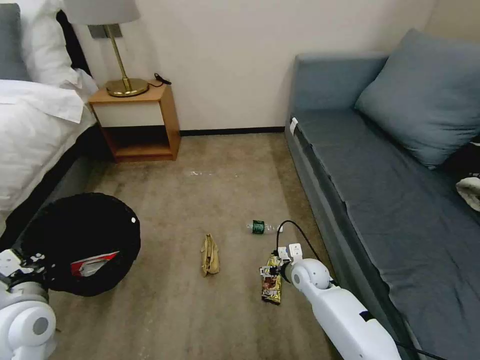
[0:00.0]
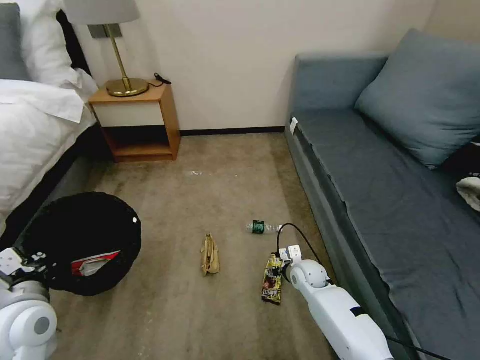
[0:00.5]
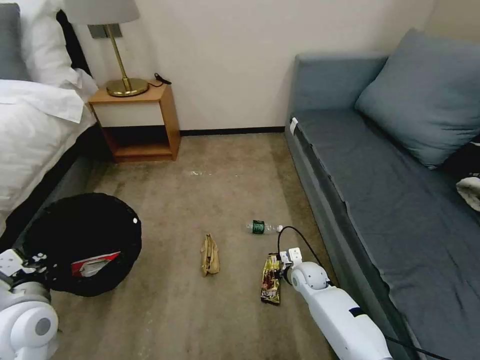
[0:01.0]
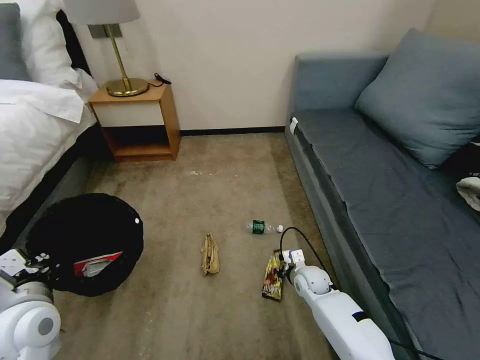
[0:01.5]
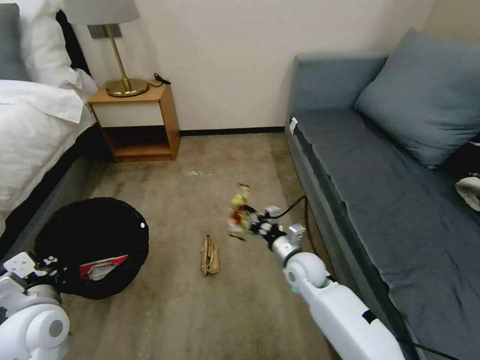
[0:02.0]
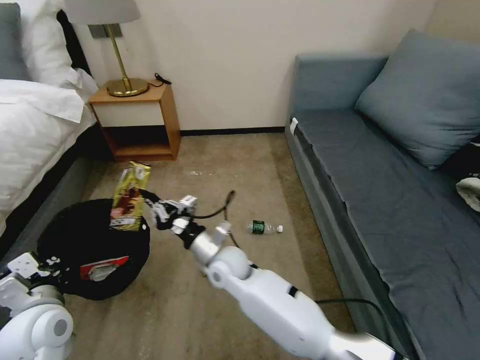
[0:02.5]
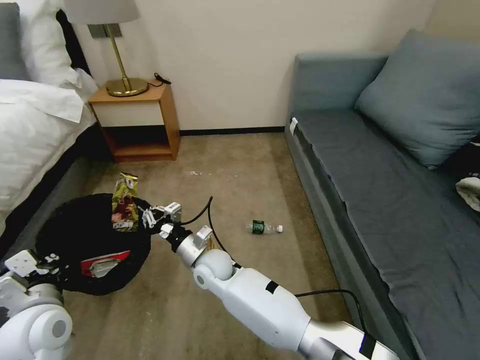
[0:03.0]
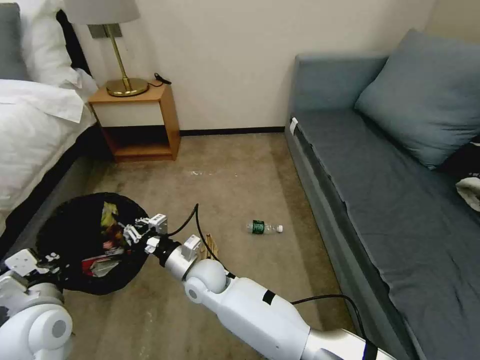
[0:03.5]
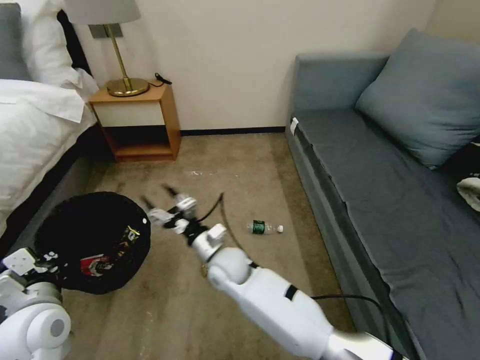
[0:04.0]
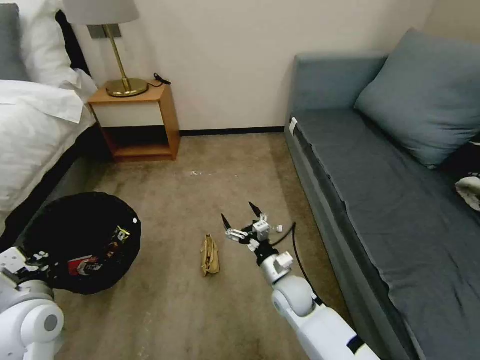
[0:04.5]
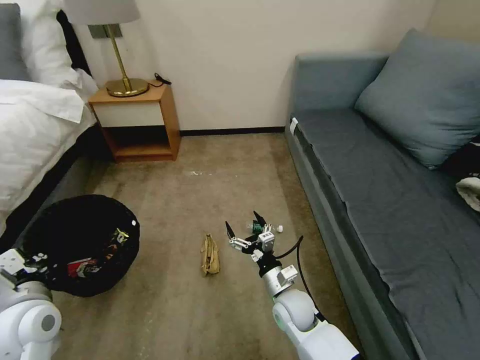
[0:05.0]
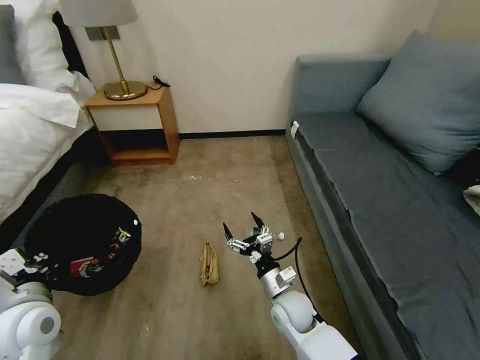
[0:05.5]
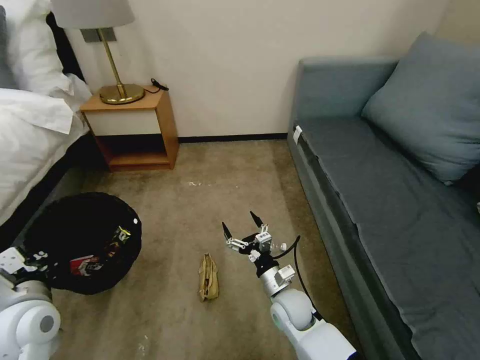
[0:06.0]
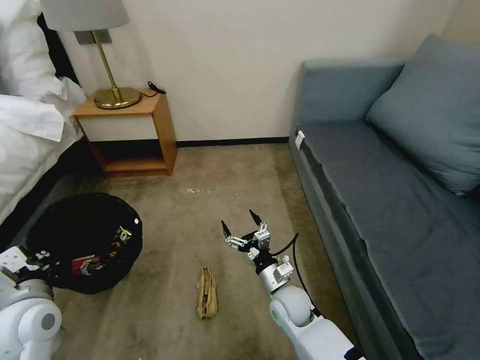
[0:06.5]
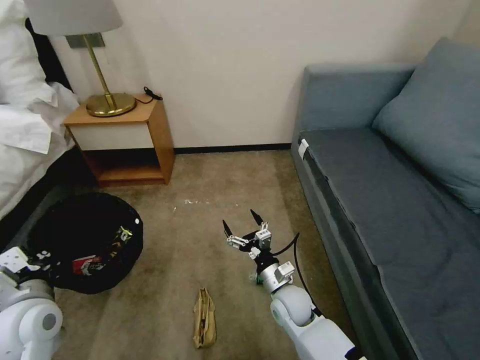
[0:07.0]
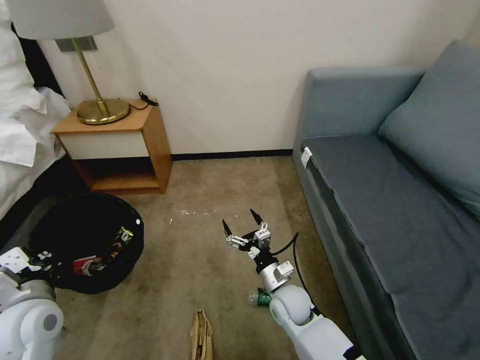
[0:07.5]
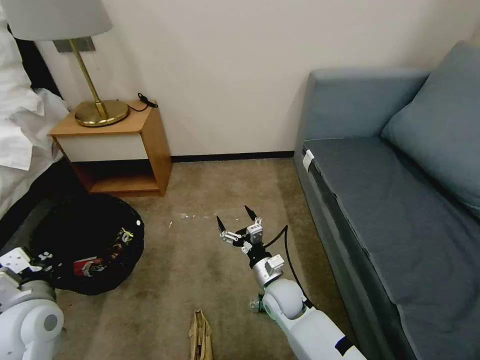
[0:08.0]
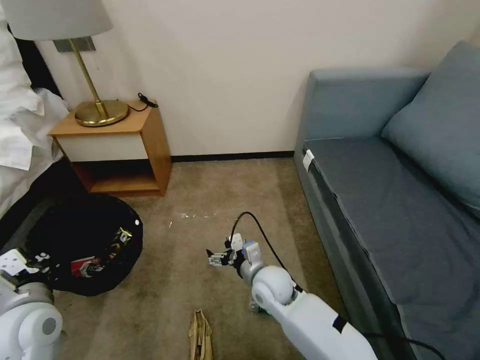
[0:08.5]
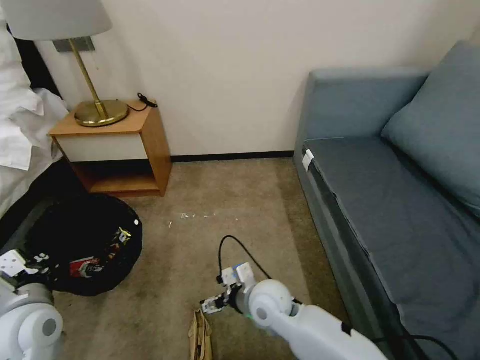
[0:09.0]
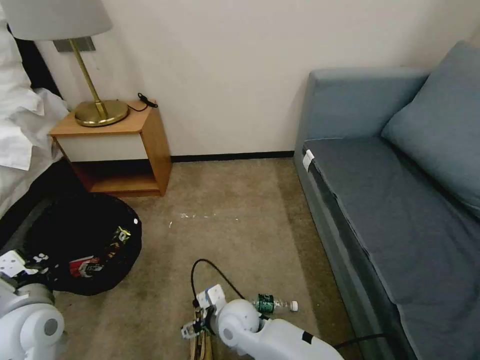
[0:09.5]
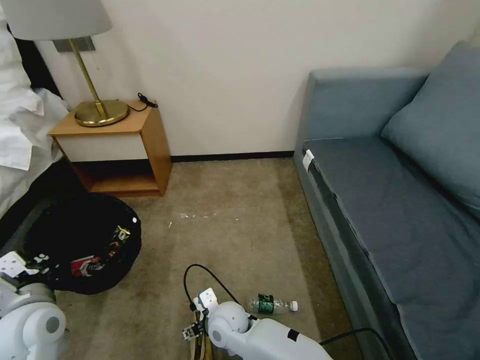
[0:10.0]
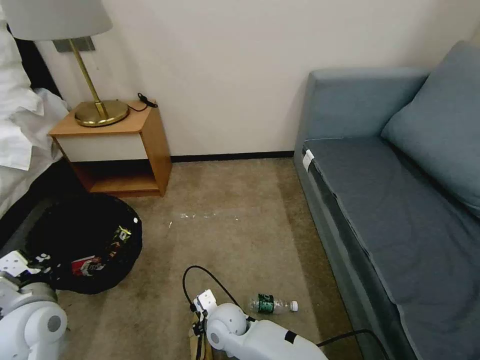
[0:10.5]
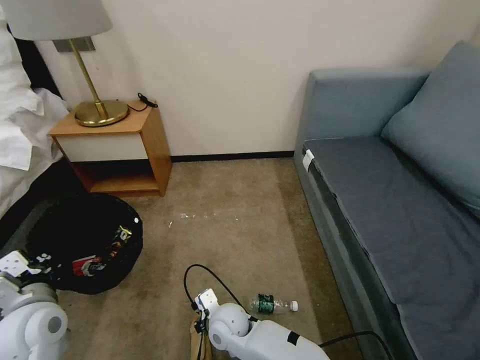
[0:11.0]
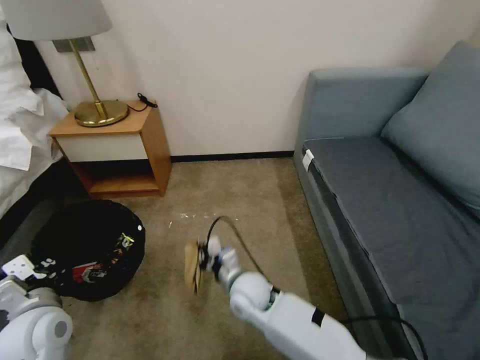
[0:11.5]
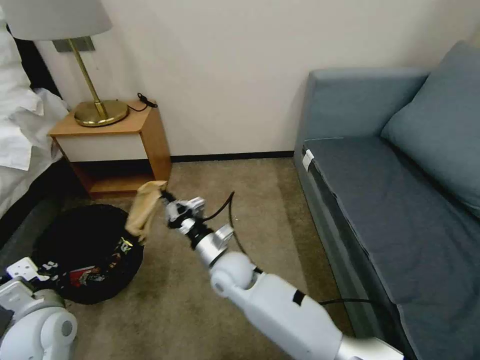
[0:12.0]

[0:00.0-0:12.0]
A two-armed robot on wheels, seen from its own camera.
Task of the whole recording: Pick up the trash bin, then pick up the garbage on the floor and place it into the trash bin.
0:00.0 to 0:02.0: The right gripper heads upward, covering approximately 5 cm, and closes its fingers.
0:02.0 to 0:04.0: The right gripper travels to the left by some 20 cm, and opens up.
0:04.0 to 0:06.0: The right gripper heads to the right, downward and backward, covering roughly 20 cm.
0:08.0 to 0:10.0: The right gripper goes approximately 15 cm to the left.
0:10.0 to 0:12.0: The right gripper goes some 15 cm upward and forward, and closes.

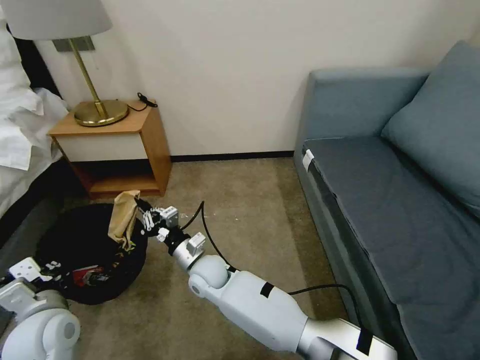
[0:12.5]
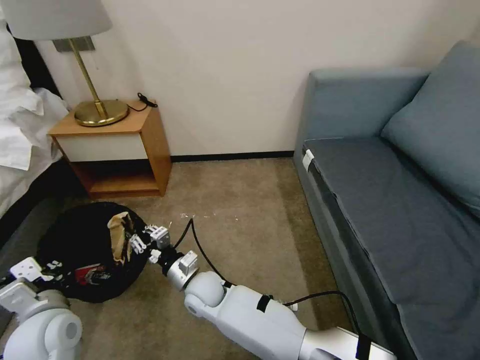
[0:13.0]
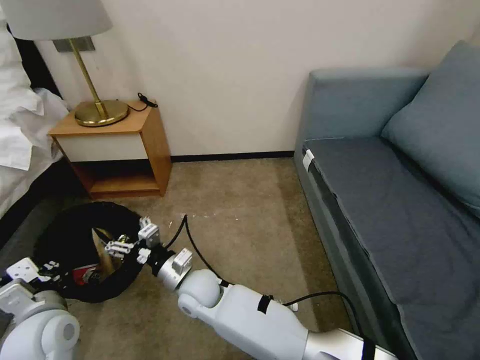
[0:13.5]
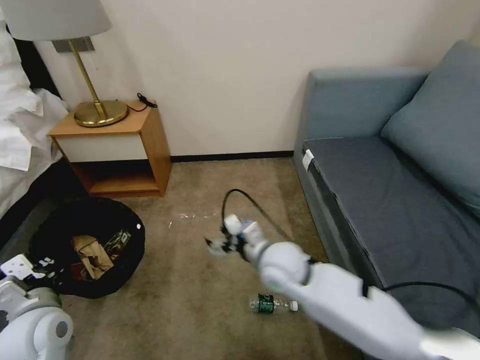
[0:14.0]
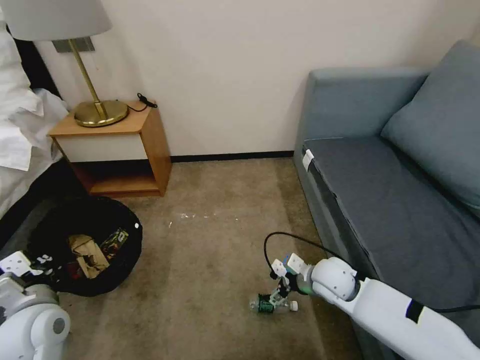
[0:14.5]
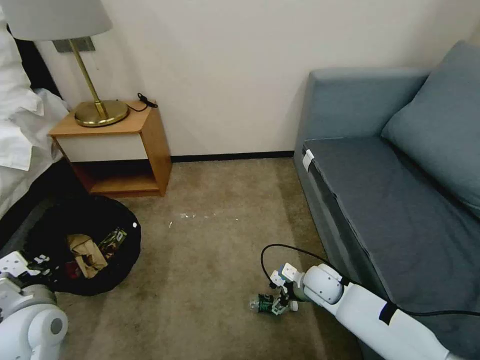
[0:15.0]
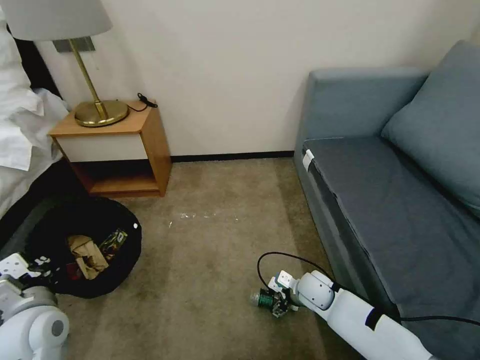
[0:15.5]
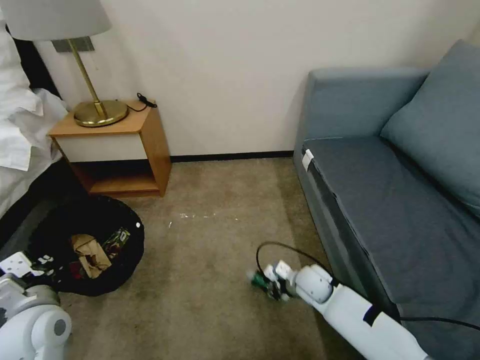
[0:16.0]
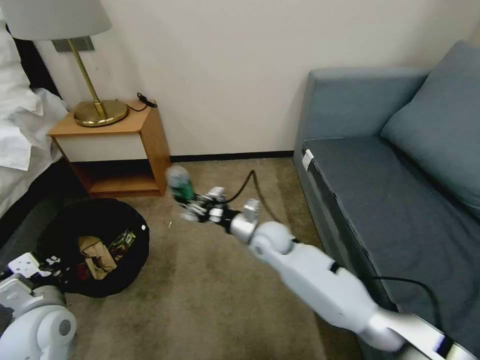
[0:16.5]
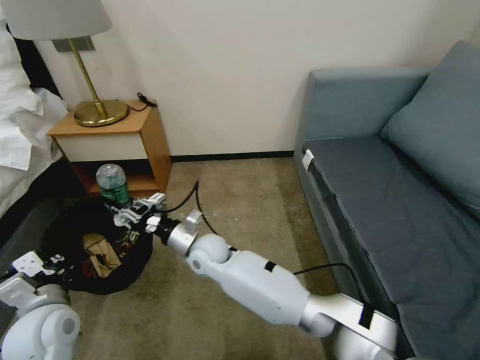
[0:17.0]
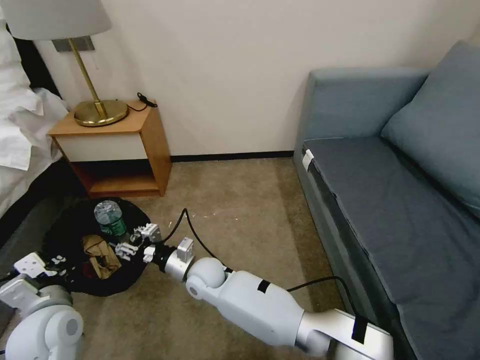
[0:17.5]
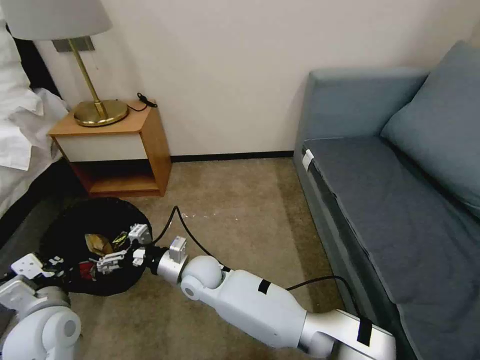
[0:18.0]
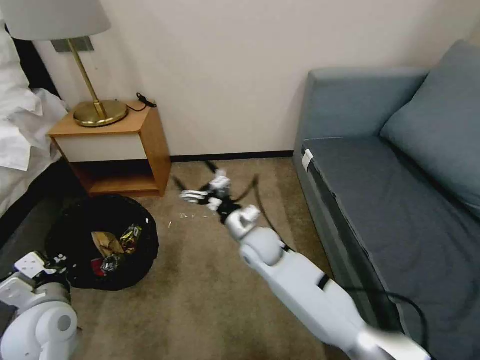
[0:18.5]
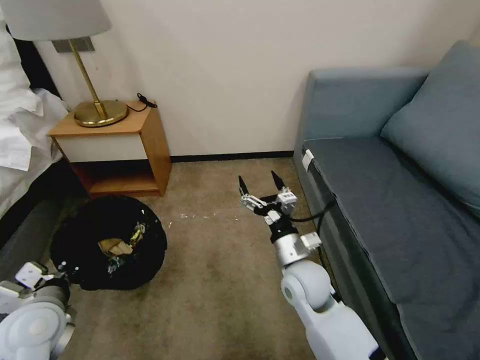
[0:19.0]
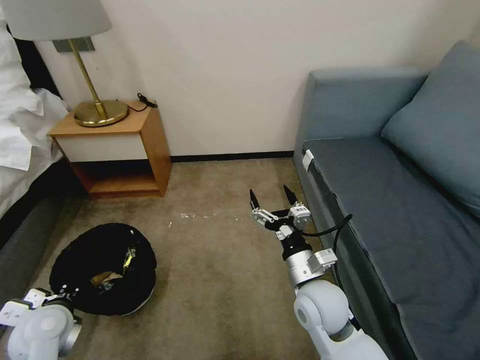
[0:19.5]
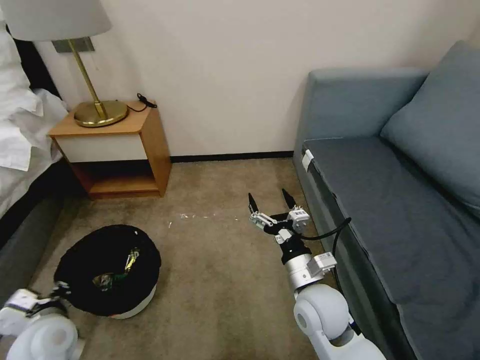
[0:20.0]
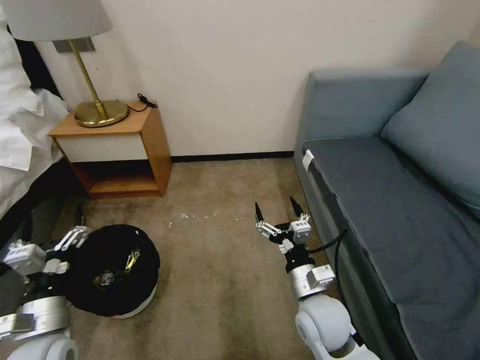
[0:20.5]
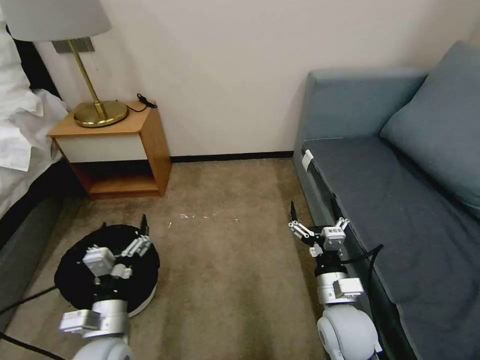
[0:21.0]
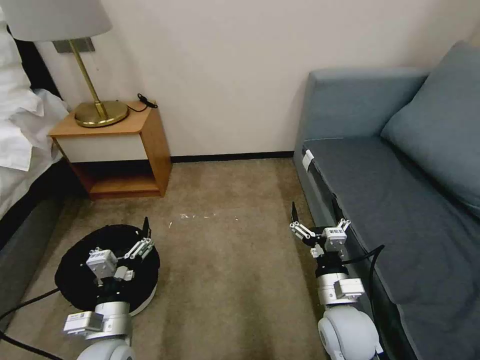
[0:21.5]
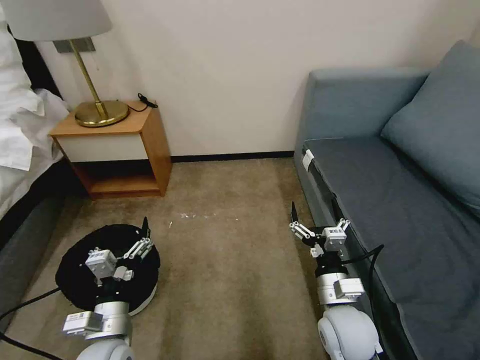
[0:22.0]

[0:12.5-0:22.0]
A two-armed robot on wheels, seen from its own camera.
Task of the whole recording: Pick up the trash bin, then pick up the garbage on the floor and place it into the trash bin.
0:12.5 to 0:14.5: The right gripper is displaced to the right by roughly 30 cm, and opens.
0:14.5 to 0:16.5: The right gripper shifts approximately 15 cm to the left and forward, travels downward and back again, approximately 10 cm each way, and closes.
0:16.5 to 0:18.0: The right gripper shifts roughly 20 cm to the left and backward, and opens.
0:18.0 to 0:20.0: The left gripper opens up, while the right gripper heads to the right, covering about 25 cm.
0:20.0 to 0:22.0: The right gripper ends up some 5 cm from where it was. The left gripper goes some 10 cm to the right, and opens up.
